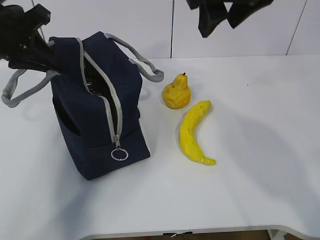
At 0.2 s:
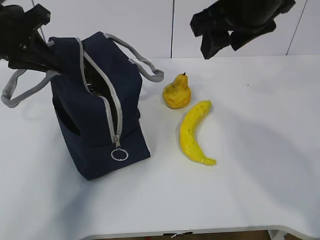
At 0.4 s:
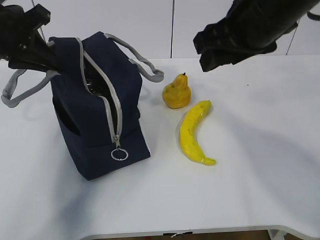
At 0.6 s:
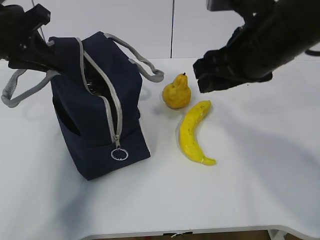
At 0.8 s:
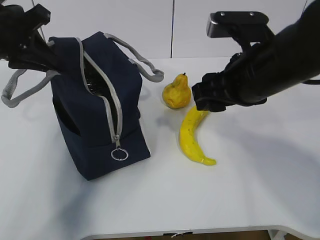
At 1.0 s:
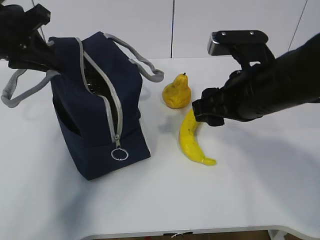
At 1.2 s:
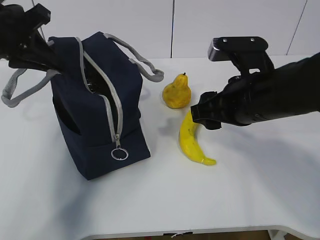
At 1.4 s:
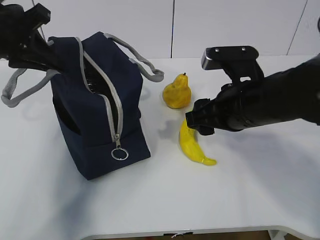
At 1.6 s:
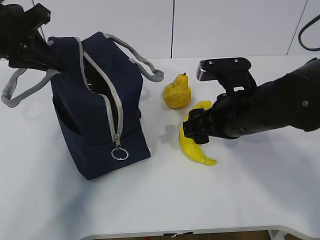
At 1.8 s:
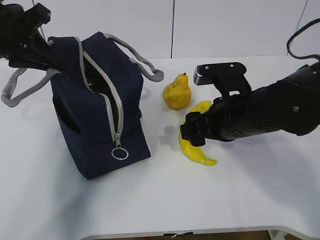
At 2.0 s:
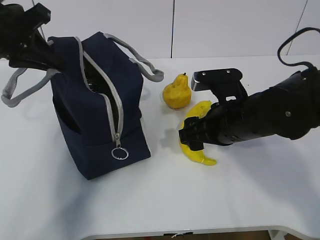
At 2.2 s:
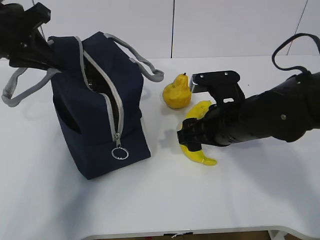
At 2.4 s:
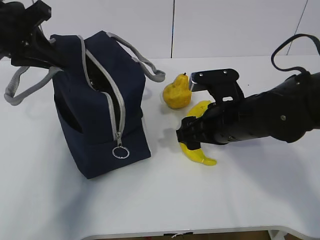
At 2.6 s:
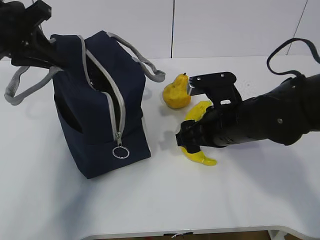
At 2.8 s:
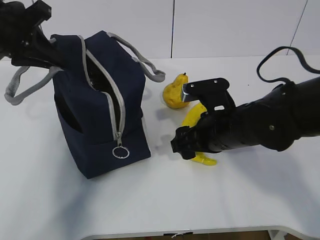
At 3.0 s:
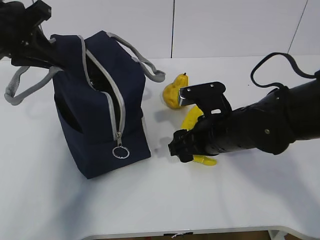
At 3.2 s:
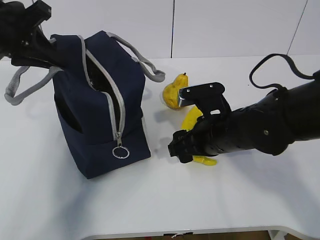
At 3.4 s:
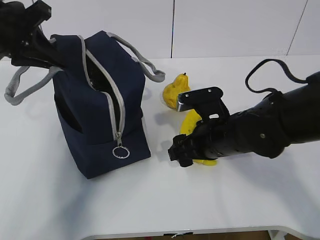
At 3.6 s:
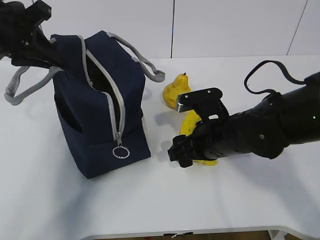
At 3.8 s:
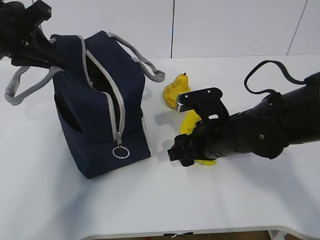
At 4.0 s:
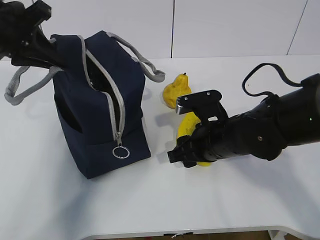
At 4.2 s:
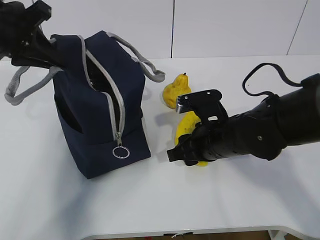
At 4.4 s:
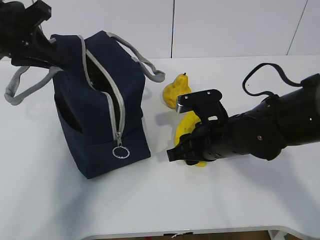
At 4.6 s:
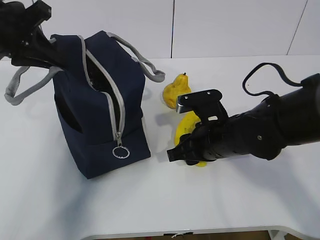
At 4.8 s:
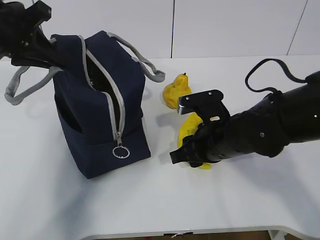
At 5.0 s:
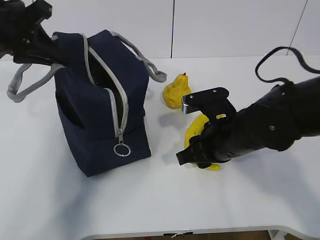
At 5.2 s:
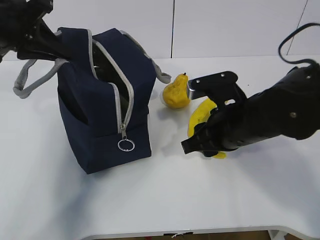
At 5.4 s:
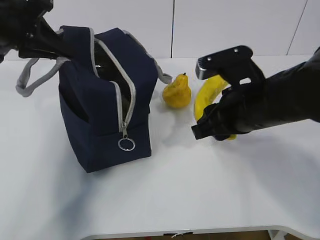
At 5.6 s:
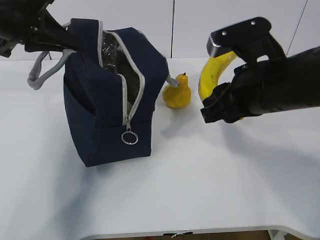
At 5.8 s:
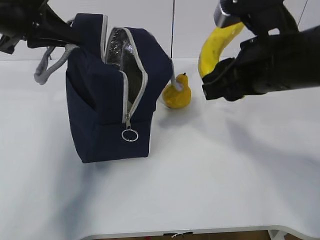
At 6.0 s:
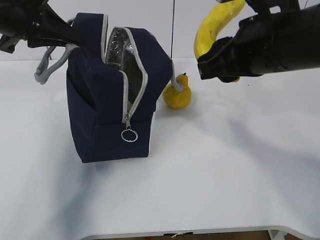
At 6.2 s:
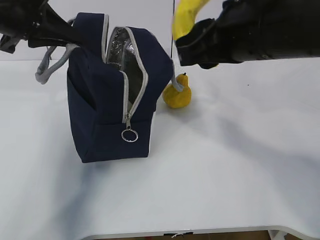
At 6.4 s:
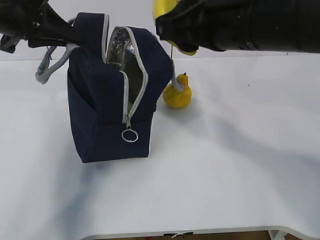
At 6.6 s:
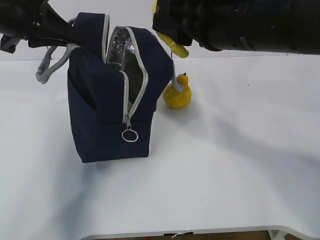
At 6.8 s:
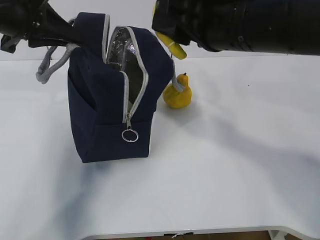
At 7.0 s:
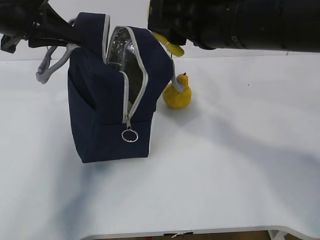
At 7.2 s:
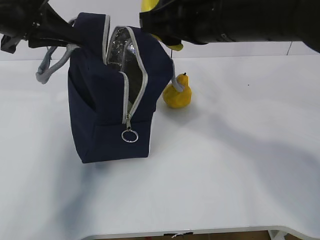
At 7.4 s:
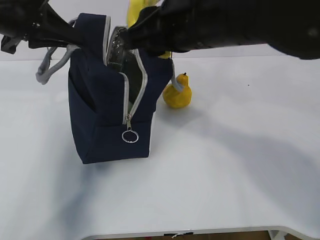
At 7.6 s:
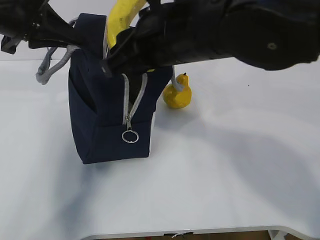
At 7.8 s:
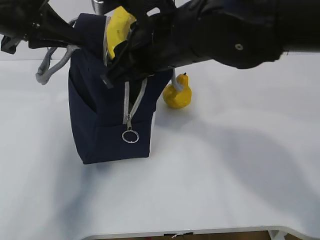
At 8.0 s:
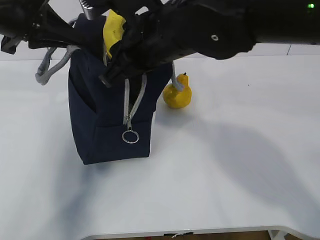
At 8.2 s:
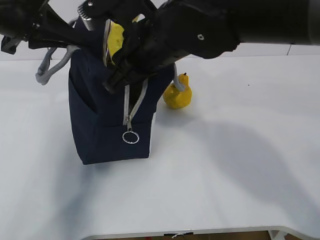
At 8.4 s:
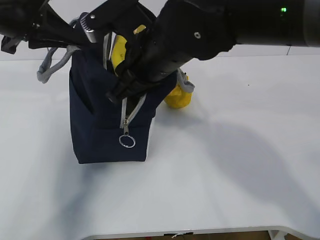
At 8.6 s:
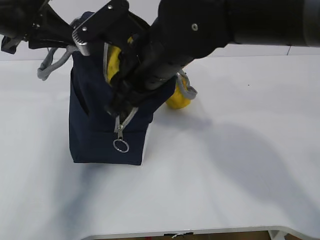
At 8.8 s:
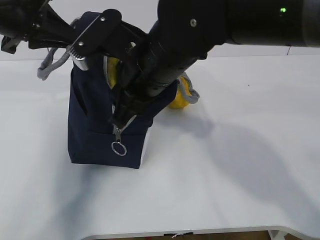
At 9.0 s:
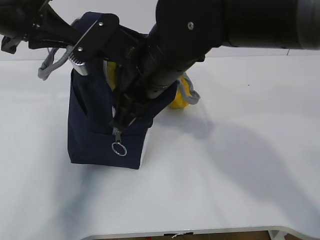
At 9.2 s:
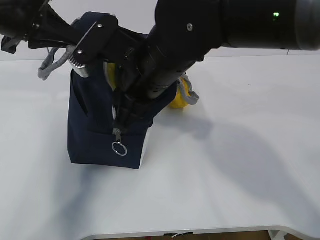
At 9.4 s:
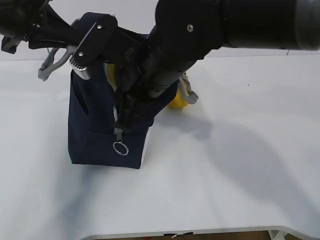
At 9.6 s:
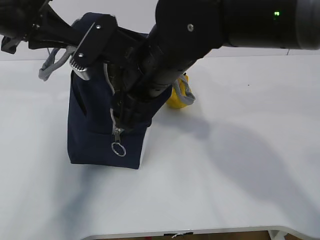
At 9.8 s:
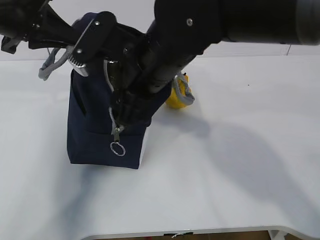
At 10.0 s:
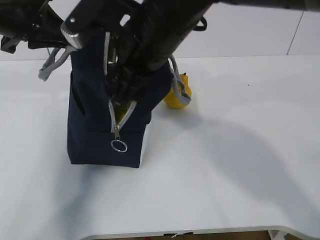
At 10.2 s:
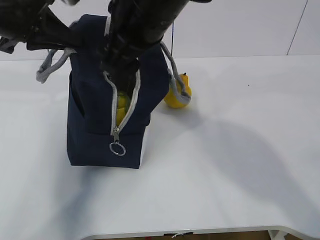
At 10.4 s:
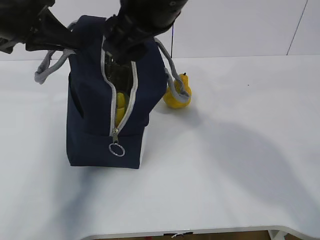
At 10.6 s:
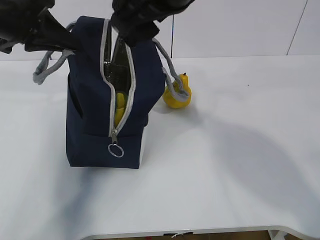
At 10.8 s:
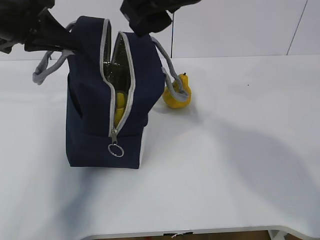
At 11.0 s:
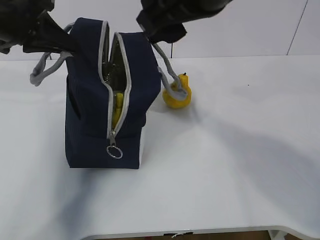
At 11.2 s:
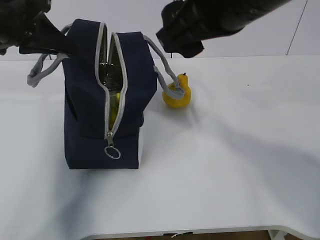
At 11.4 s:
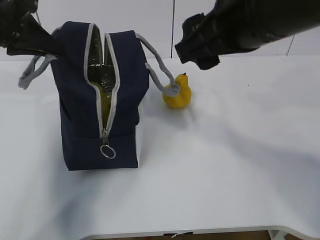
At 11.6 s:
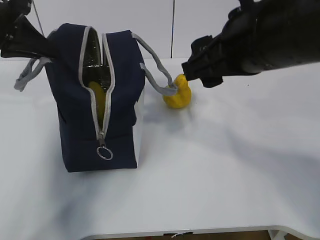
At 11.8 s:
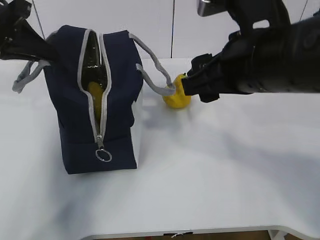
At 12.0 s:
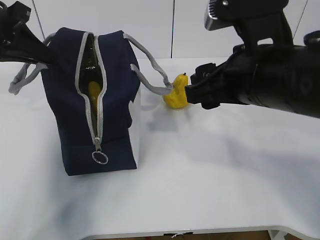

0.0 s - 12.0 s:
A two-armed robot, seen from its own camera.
Step, 0.0 s - 3.8 s: Place it into the bag with your right hand.
Step, 4.0 s - 11.4 s: Grab the pear with your right hand.
0.0 s - 1.6 s: The right gripper is displaced downward by about 20 cm.
1.6 s - 3.0 s: The right gripper travels downward by approximately 5 cm.
3.0 s - 4.4 s: The right gripper closes its fingers.
4.4 s - 6.0 s: The right gripper is displaced upward by about 20 cm.
6.0 s - 7.6 s: The right gripper shifts roughly 10 cm to the left.
7.6 s - 9.0 s: The right gripper changes place by approximately 5 cm.
9.0 s - 10.4 s: The right gripper is displaced upward by approximately 10 cm, and opens its fingers.
10.4 s - 12.0 s: The right gripper goes roughly 15 cm to the right, downward and backward.

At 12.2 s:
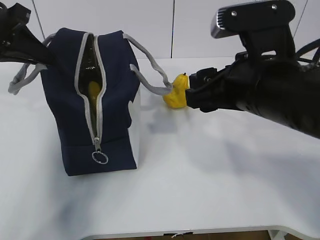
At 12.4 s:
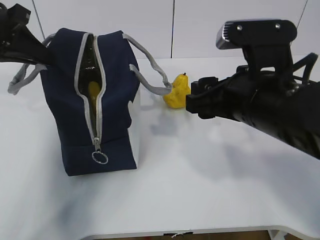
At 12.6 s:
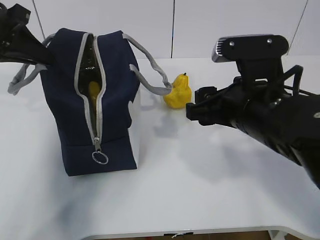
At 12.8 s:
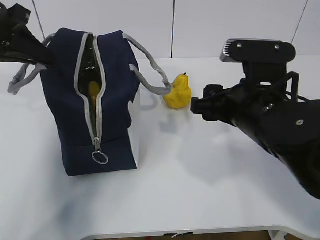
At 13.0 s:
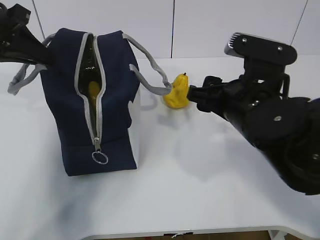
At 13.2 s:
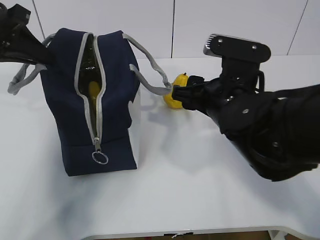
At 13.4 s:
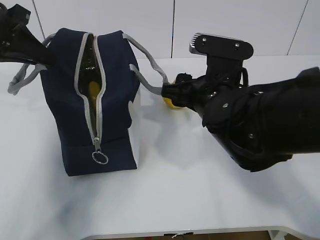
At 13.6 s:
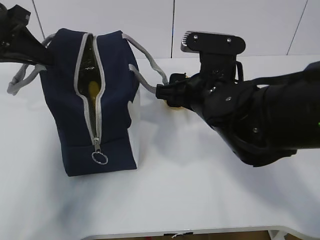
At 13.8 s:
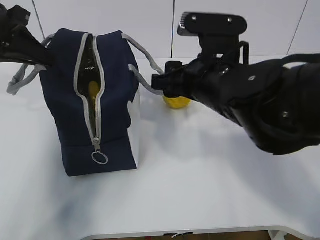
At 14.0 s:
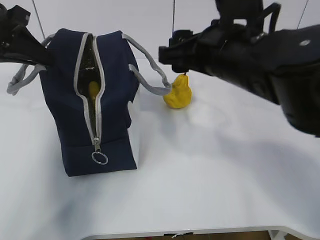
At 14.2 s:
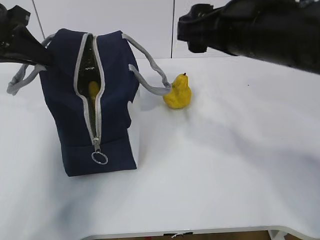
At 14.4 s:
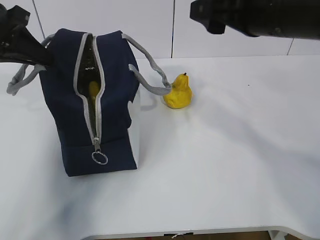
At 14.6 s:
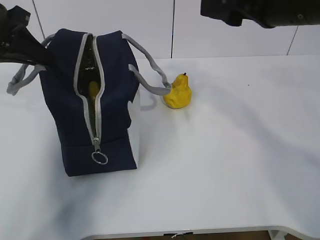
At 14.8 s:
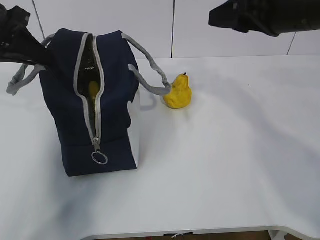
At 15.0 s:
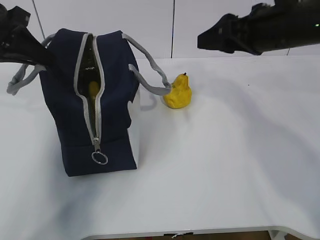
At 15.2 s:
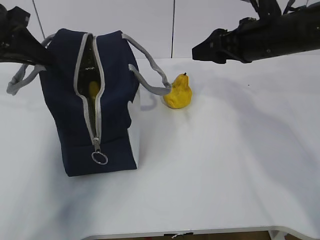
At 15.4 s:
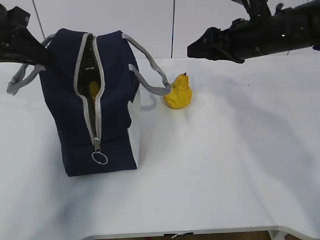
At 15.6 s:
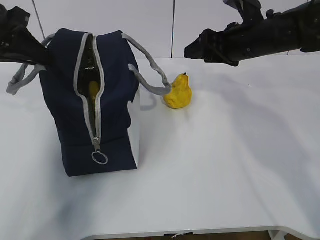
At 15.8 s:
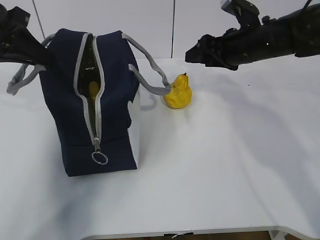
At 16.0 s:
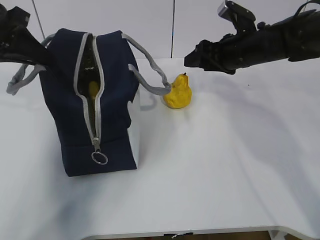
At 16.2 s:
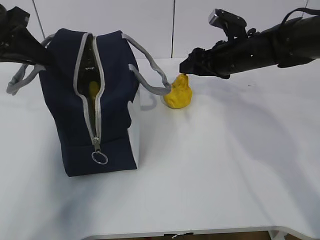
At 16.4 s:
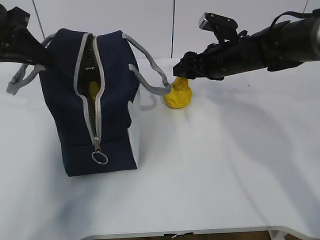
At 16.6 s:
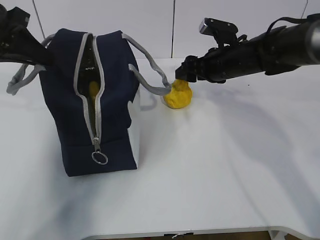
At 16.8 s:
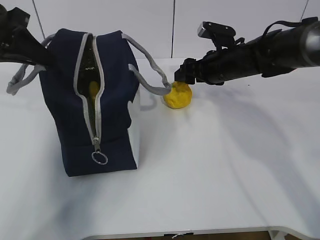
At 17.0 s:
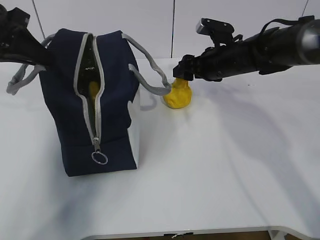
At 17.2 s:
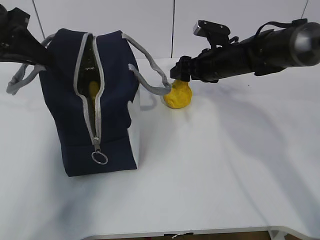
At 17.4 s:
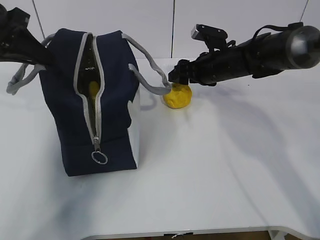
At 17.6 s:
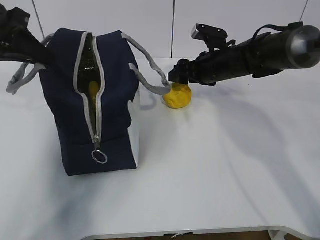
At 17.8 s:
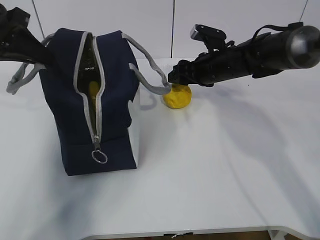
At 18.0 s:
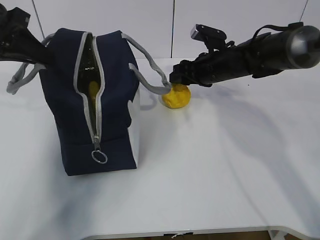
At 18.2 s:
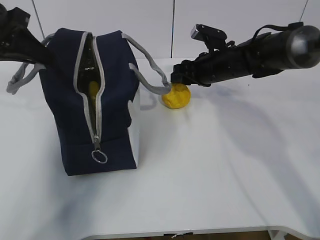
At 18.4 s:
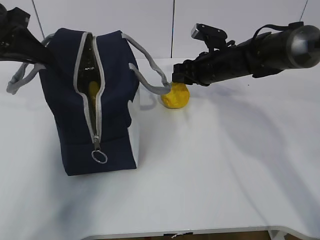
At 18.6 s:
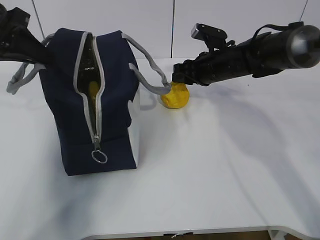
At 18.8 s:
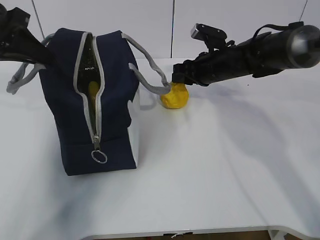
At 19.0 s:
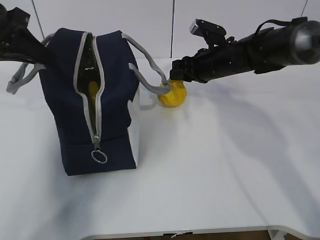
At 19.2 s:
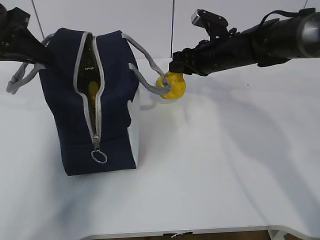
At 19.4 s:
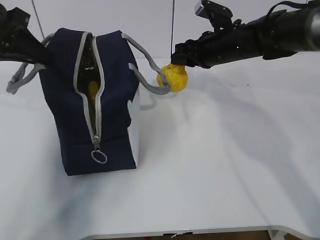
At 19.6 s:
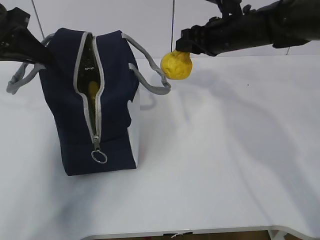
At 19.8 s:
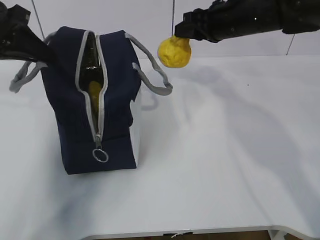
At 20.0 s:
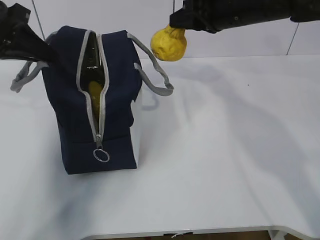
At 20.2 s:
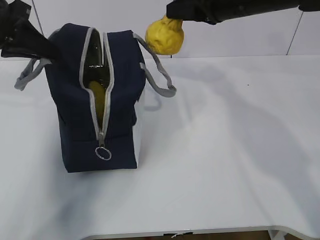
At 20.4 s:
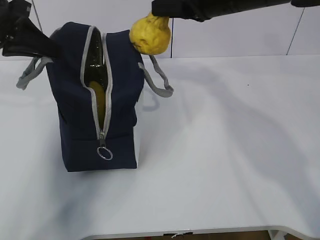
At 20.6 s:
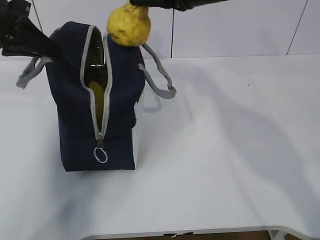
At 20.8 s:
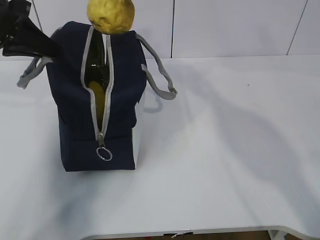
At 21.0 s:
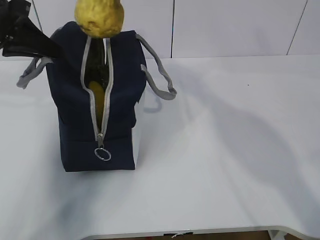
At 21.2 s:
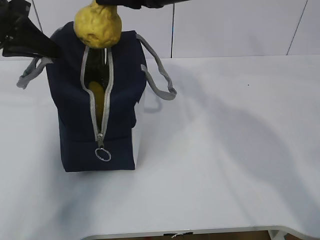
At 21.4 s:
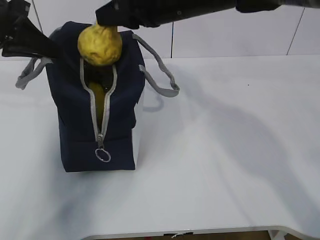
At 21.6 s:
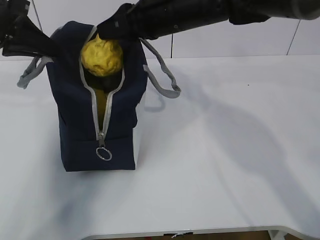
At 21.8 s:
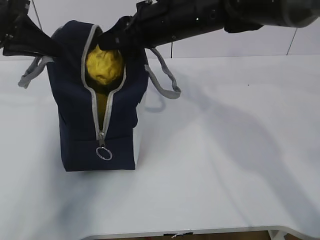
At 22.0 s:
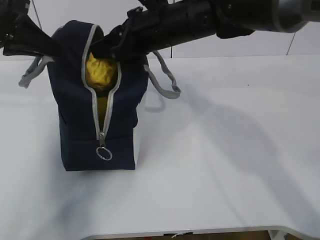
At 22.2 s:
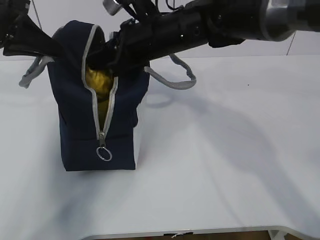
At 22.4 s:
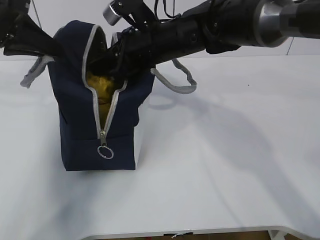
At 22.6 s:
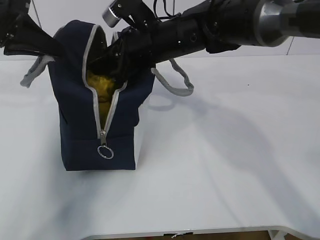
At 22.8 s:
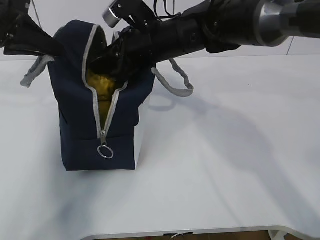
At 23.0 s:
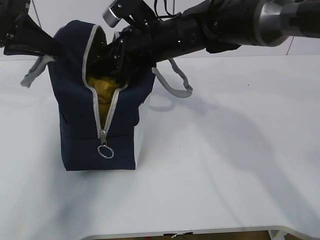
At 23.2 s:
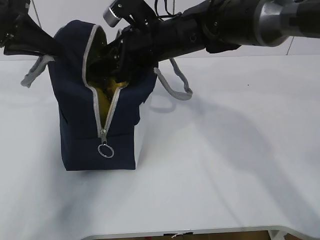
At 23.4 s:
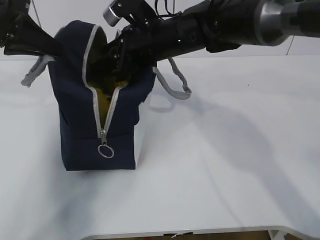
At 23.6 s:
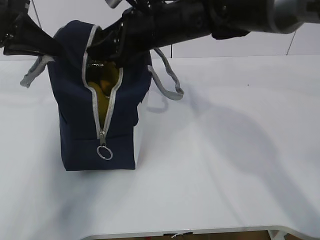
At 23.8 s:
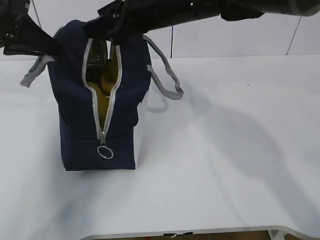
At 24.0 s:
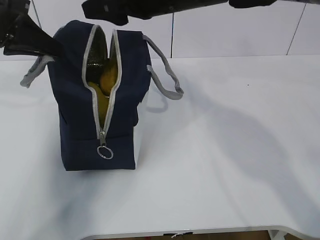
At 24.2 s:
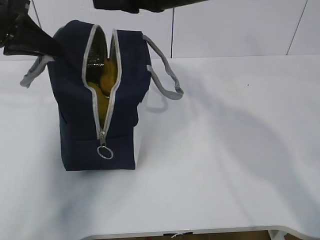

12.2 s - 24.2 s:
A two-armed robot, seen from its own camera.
12.2 s - 13.8 s: The right gripper shifts about 5 cm forward.
13.8 s - 15.2 s: The right gripper heads to the right and forward, covering approximately 15 cm.
15.2 s - 16.6 s: The right gripper shifts some 10 cm downward and forward.
16.6 s - 18.2 s: The right gripper closes its fingers.
18.2 s - 19.8 s: The right gripper is displaced upward by about 10 cm.
19.8 s - 21.2 s: The right gripper heads to the left, upward and backward, covering approximately 15 cm.
21.2 s - 22.6 s: The right gripper heads downward, covering roughly 10 cm.
22.6 s - 24.2 s: The right gripper goes some 10 cm upward.
